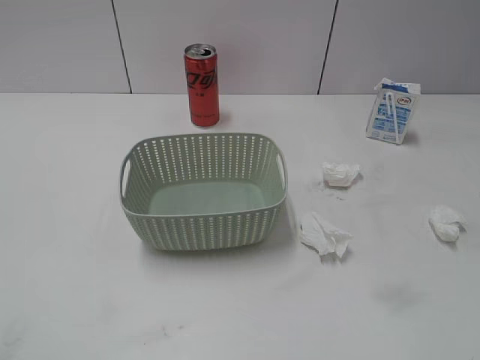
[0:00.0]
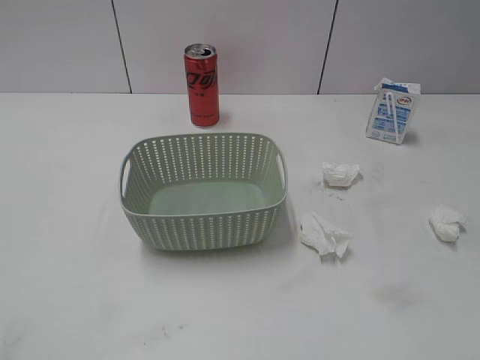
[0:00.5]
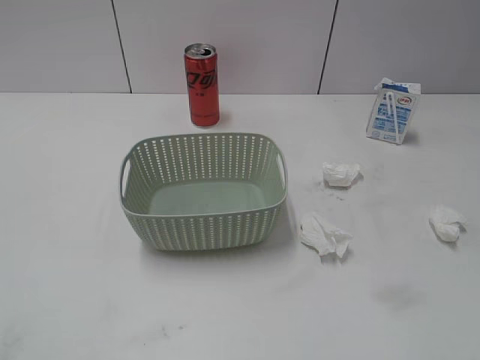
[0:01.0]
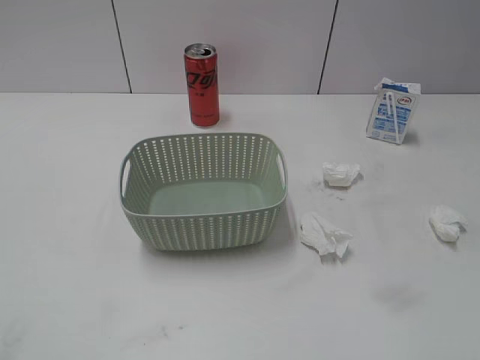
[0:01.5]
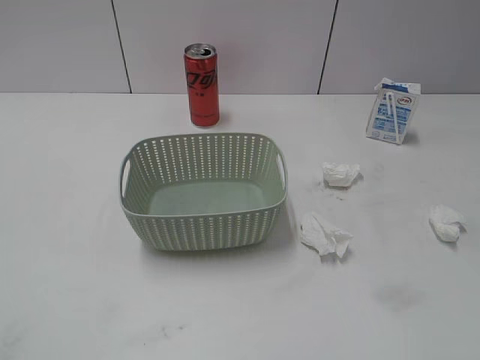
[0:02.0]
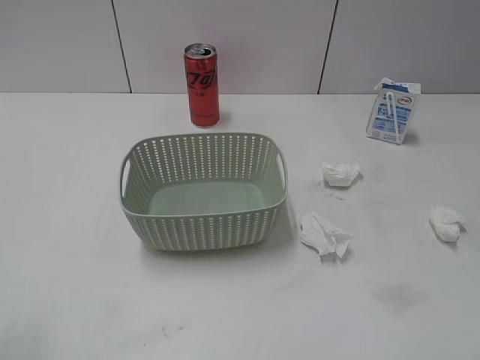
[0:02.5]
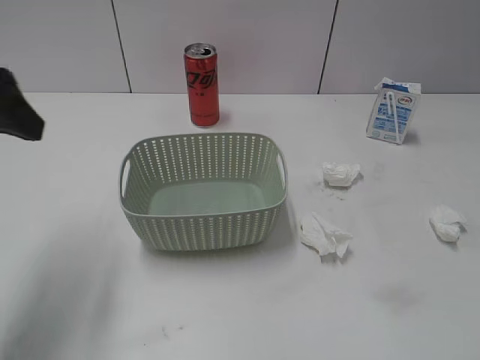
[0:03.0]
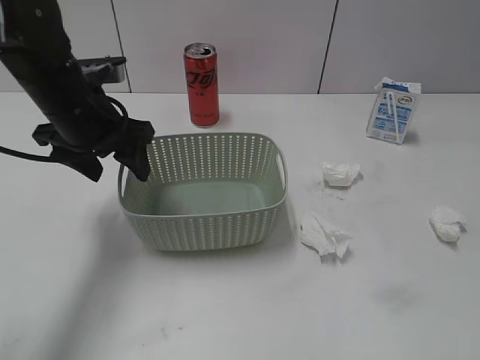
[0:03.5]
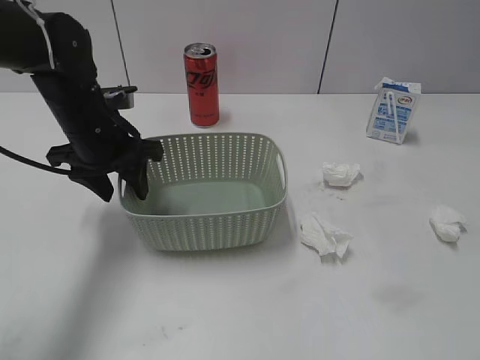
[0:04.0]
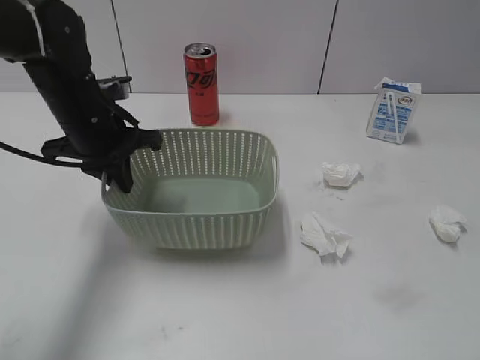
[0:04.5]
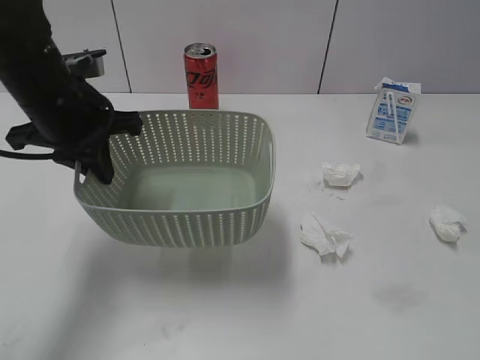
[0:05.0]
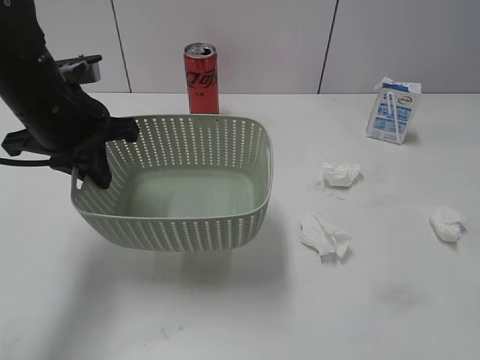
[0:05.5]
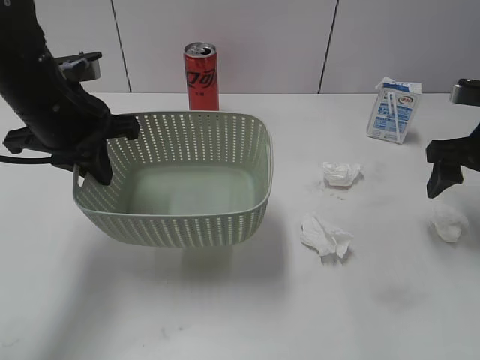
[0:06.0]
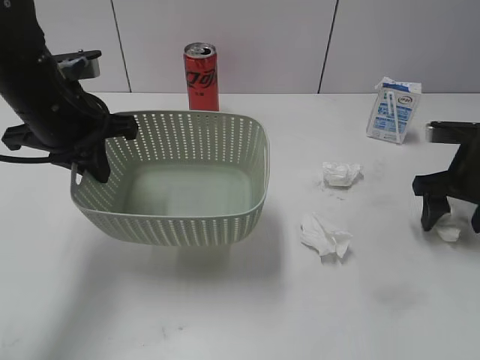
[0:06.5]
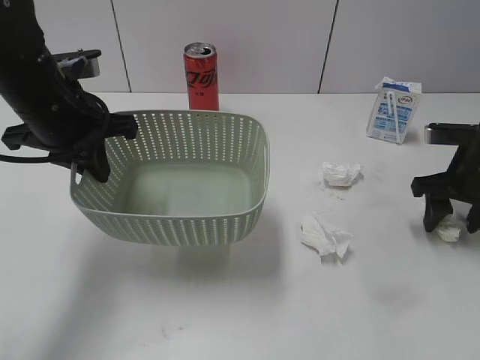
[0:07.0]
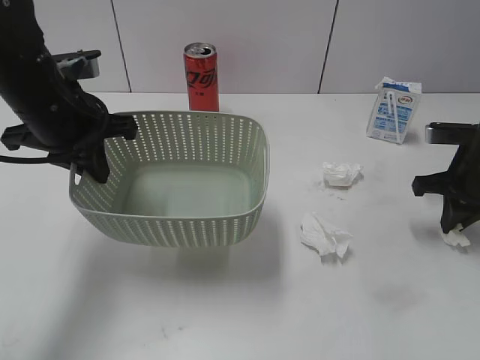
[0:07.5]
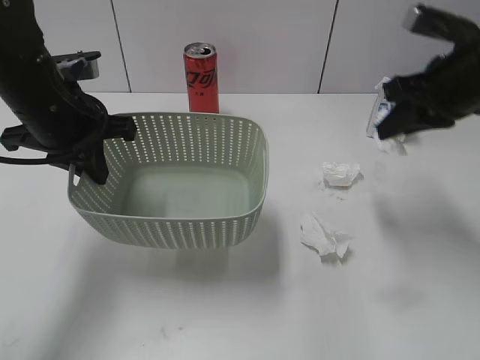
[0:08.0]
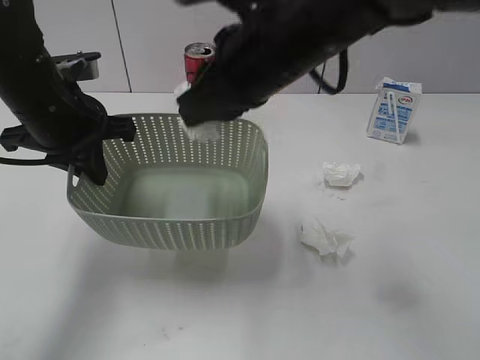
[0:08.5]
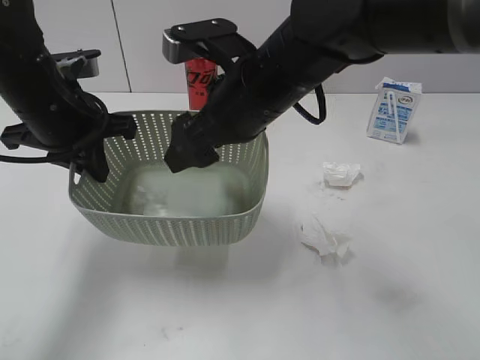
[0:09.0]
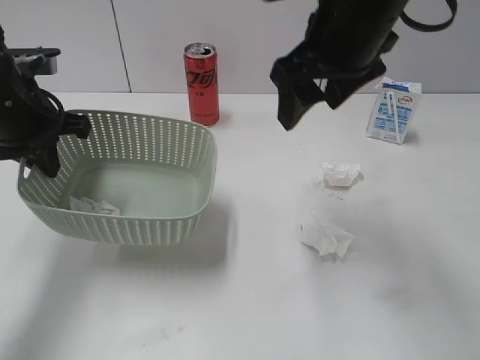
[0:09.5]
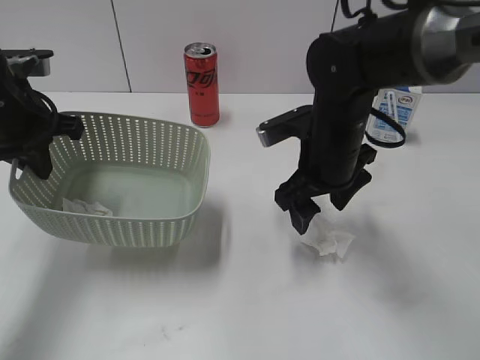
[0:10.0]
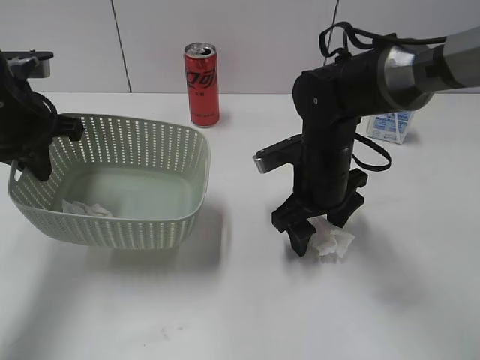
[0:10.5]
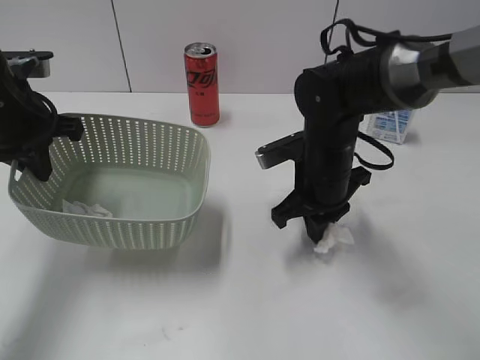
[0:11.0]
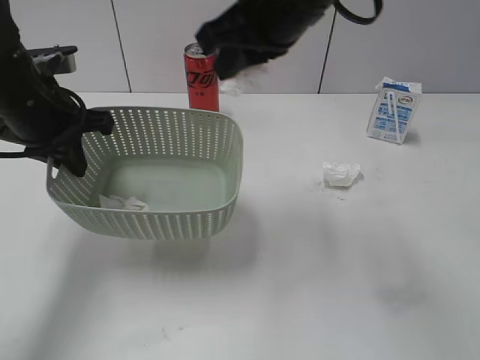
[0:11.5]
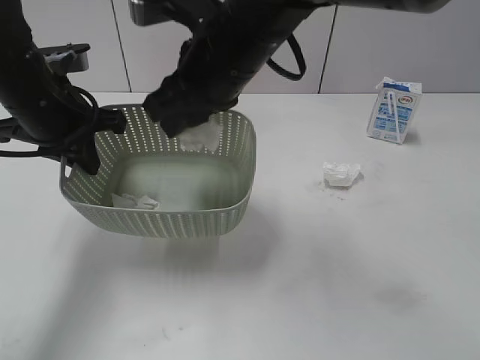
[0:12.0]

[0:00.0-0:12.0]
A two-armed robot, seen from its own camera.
Step, 0:00.0 to 0:04.5: Grasp the basket with left gripper.
Step, 0:06.0 to 0:07.5: Grasp the waste paper with right gripper.
Step, 0:08.0 to 0:09.0: Place the waste paper in the basket with right gripper.
Step, 0:09.5 to 0:11.0: Grasp the waste paper with right gripper.
0:02.0 to 0:04.0: The left gripper goes some 40 cm forward and to the right.
0:04.0 to 0:06.0: The left gripper travels upward by some 5 cm, and closes up. The right gripper travels forward by approximately 30 cm.
0:06.0 to 0:08.0: The right gripper is displaced upward and to the left by roughly 10 cm, and closes its fingers.
0:08.0 to 0:10.0: The left gripper goes approximately 5 cm to the left, while the right gripper goes roughly 15 cm to the left and downward, and opens up.
0:10.0 to 0:12.0: The right gripper goes up and down, some 20 cm each way, reversing 2 times, and closes.

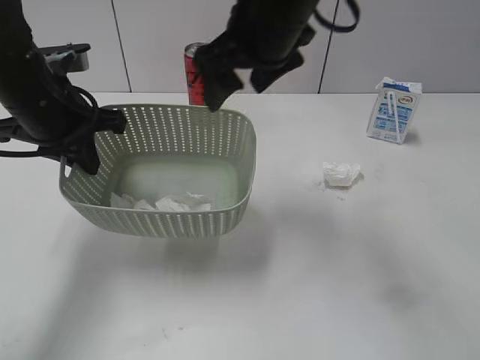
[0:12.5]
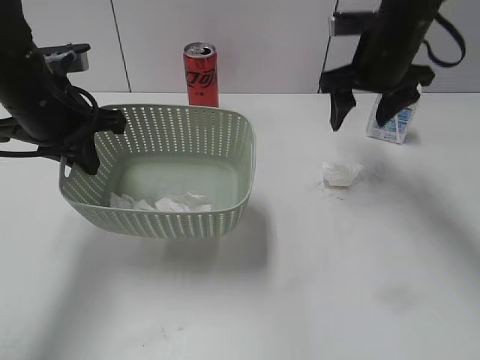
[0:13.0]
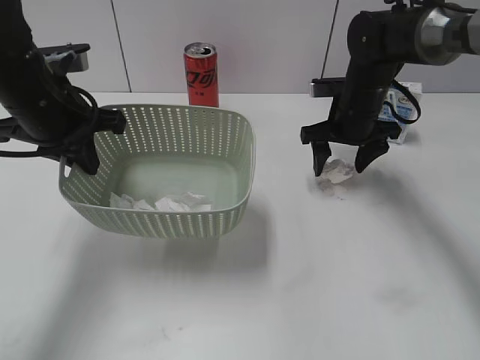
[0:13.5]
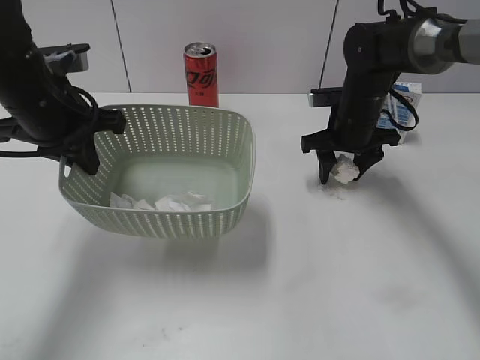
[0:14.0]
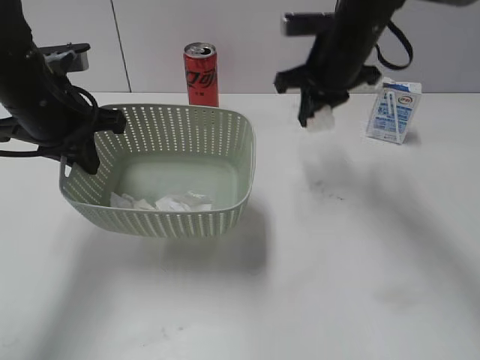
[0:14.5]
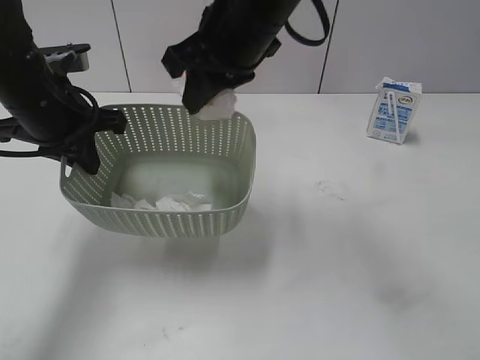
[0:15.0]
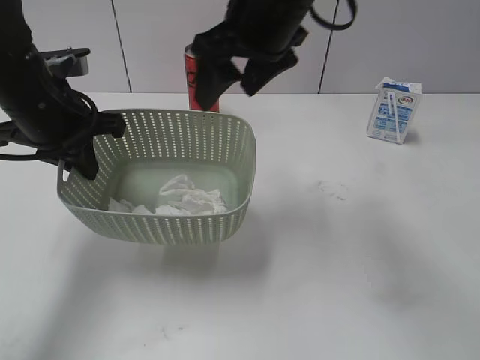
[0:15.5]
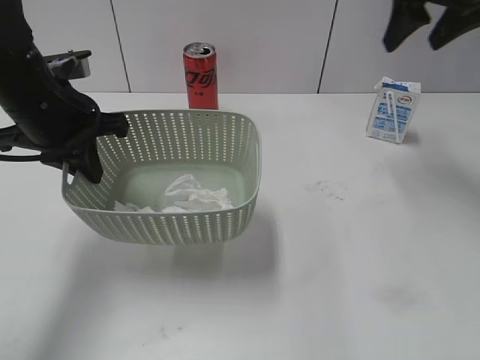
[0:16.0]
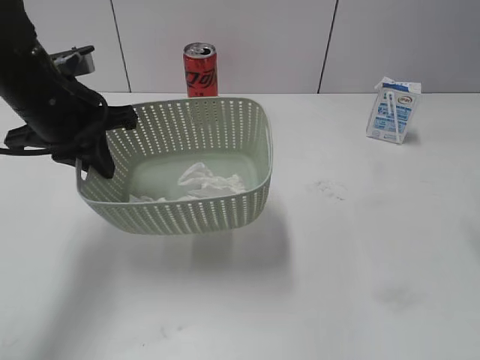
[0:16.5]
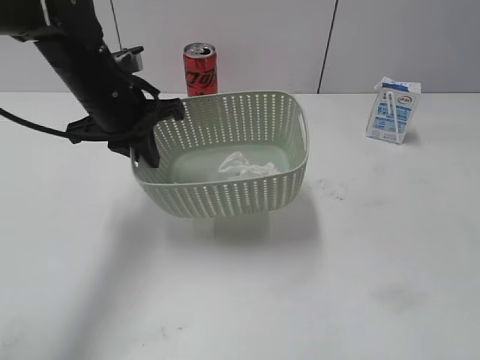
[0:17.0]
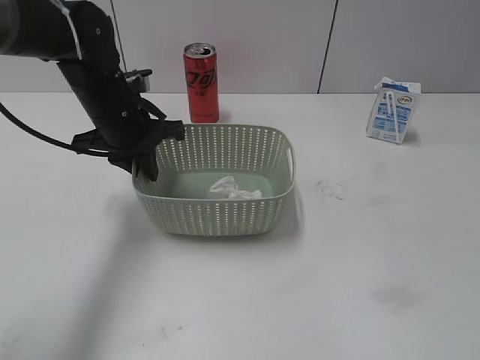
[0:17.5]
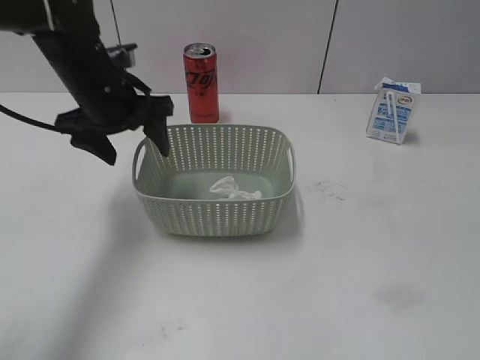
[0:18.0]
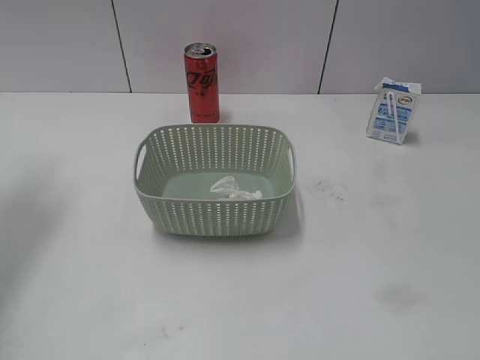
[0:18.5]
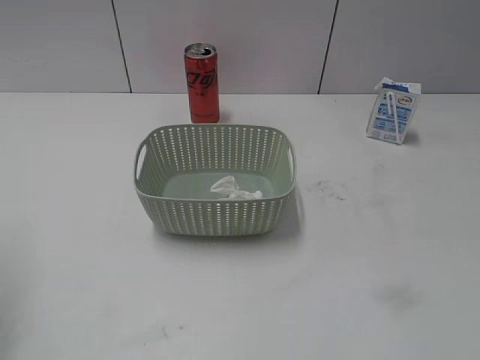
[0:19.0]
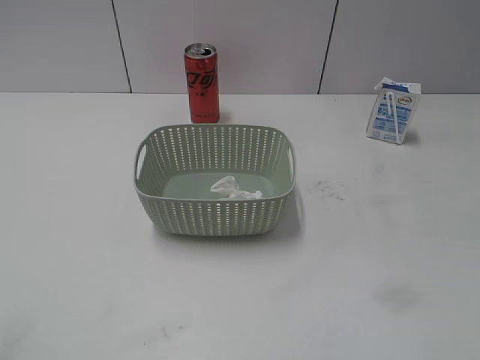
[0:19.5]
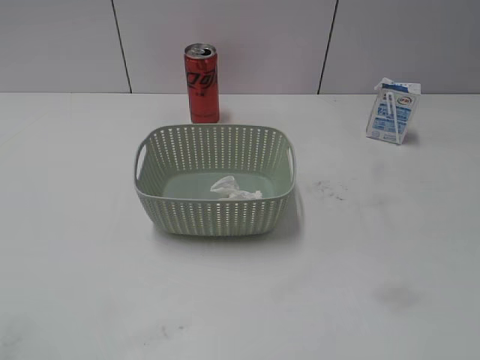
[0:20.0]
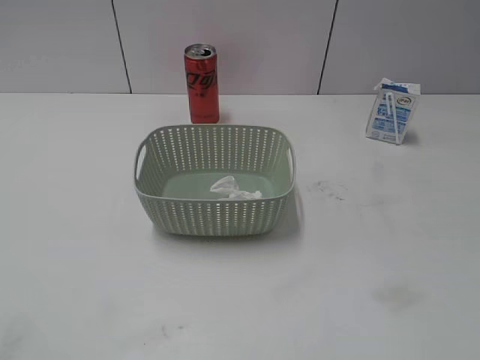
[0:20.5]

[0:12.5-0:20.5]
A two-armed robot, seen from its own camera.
Step, 0:12.5 to 0:14.0: Grasp the waste paper with right gripper.
Step, 0:14.5 to 0:15.5: Place the waste paper in the basket with right gripper.
Step, 0:16.0 to 0:18.0: Place the basket on the table with left gripper.
0:12.5 to 0:14.5: The right gripper moves to the right, forward and downward, about 15 cm, and closes.
0:14.5 to 0:16.5: The right gripper goes about 25 cm to the right, upward and backward, and opens its fingers.
0:16.5 to 0:18.5: The right gripper shifts roughly 30 cm backward. The left gripper goes roughly 15 cm to the left and upward, and opens its fingers.
0:18.5 to 0:20.5: The left gripper goes some 35 cm backward.
